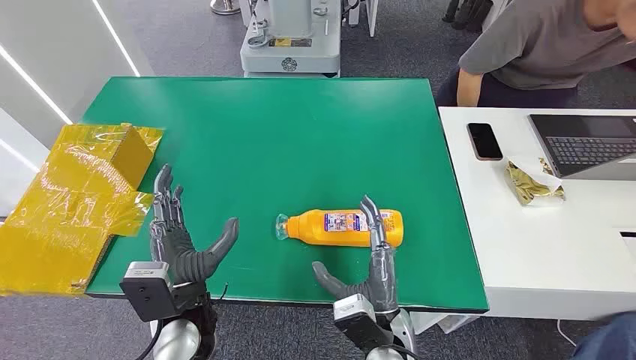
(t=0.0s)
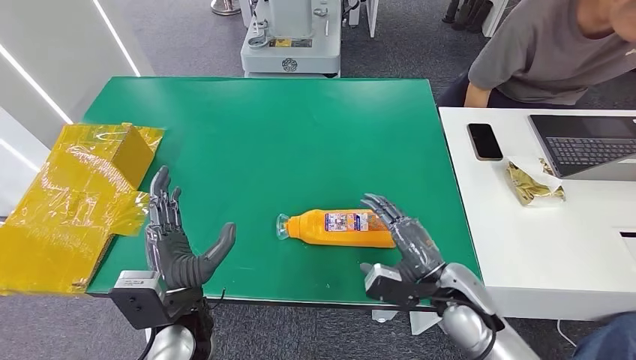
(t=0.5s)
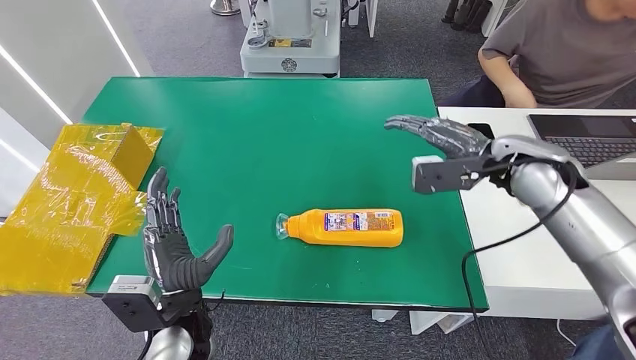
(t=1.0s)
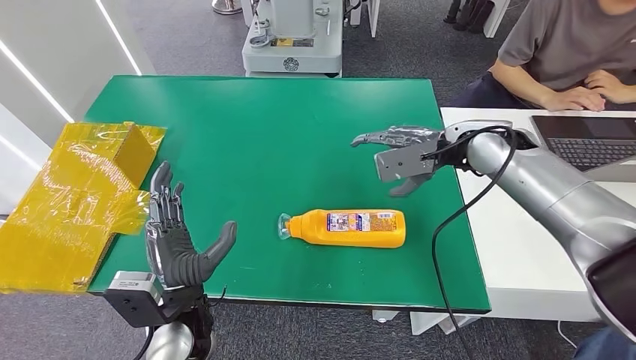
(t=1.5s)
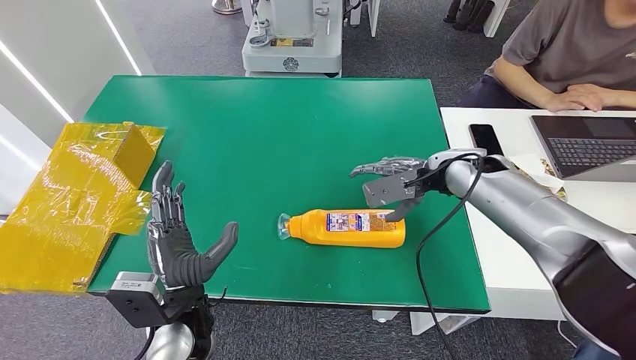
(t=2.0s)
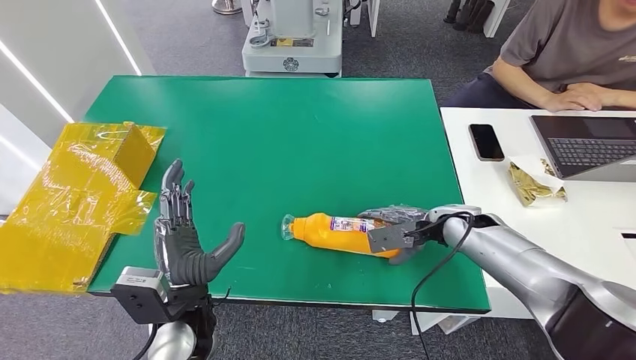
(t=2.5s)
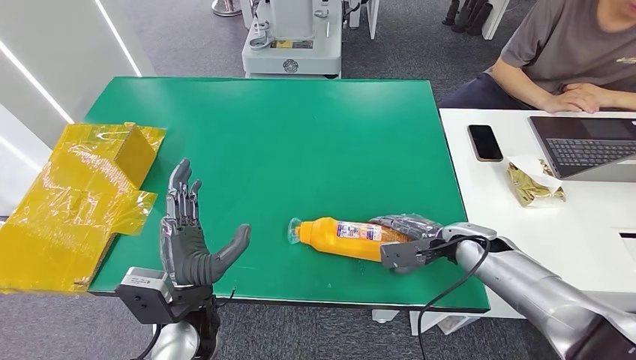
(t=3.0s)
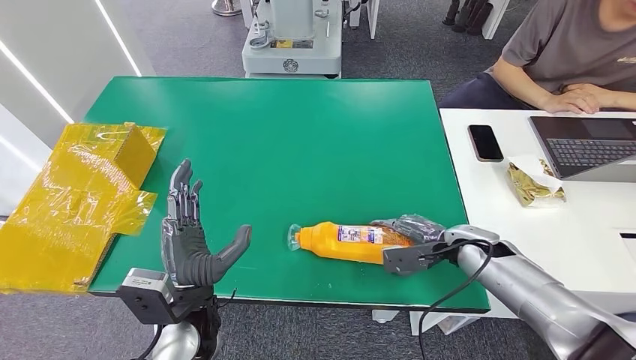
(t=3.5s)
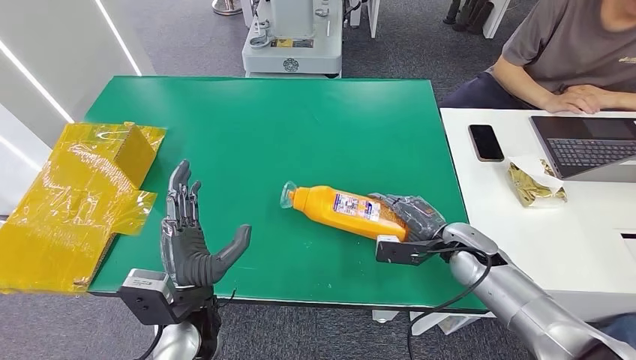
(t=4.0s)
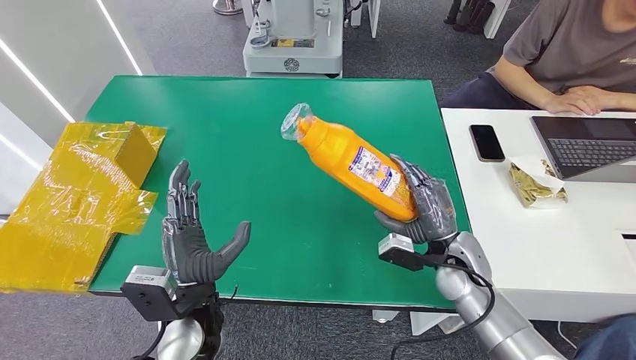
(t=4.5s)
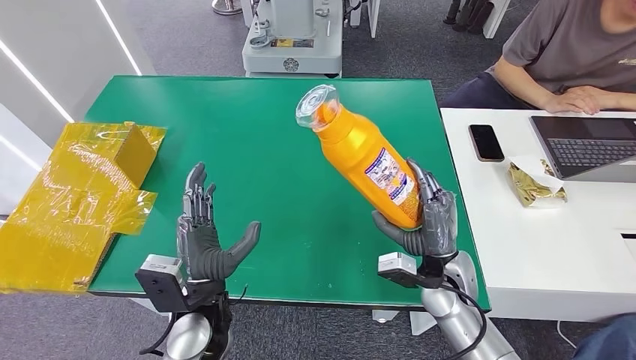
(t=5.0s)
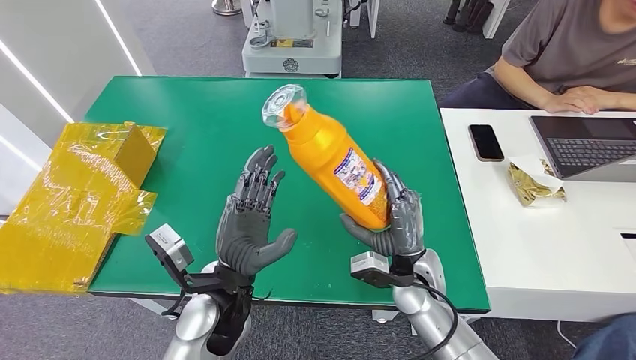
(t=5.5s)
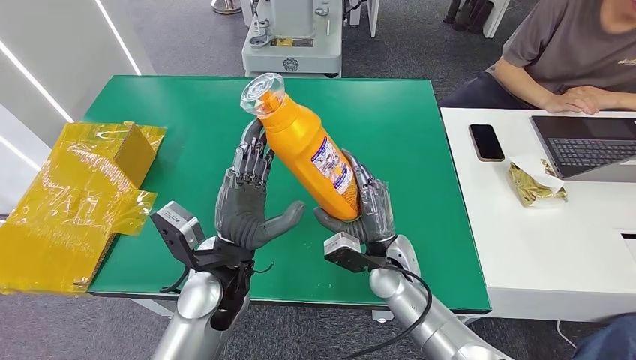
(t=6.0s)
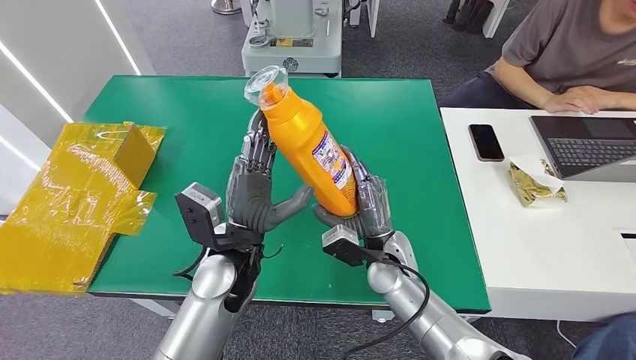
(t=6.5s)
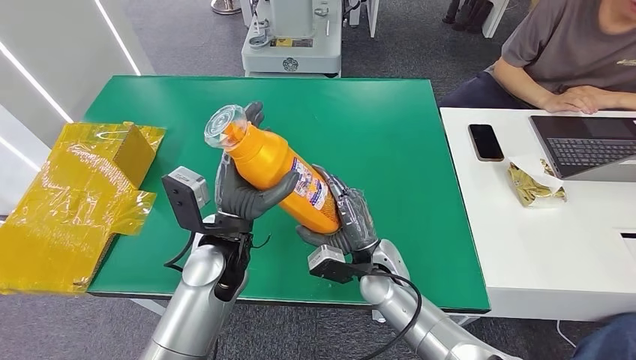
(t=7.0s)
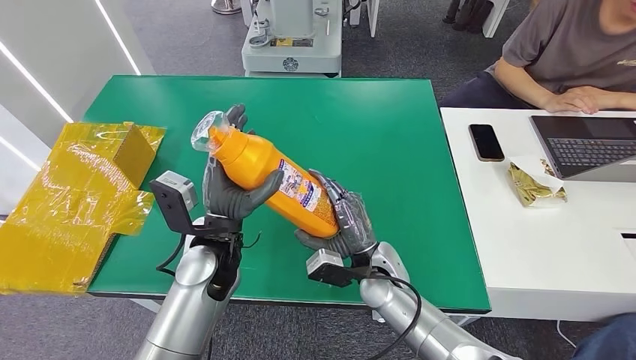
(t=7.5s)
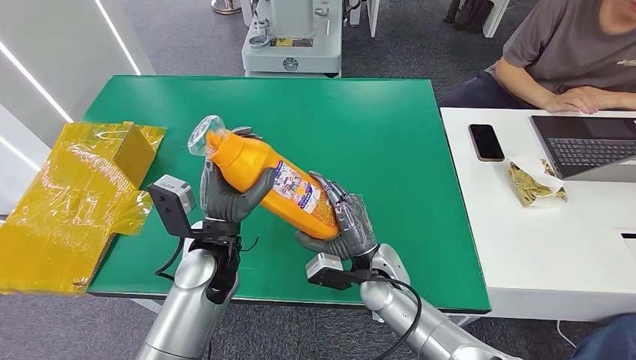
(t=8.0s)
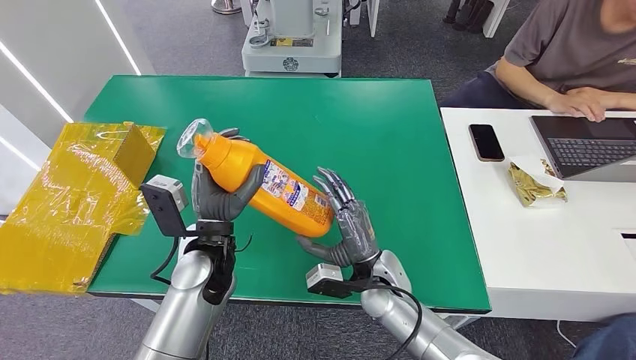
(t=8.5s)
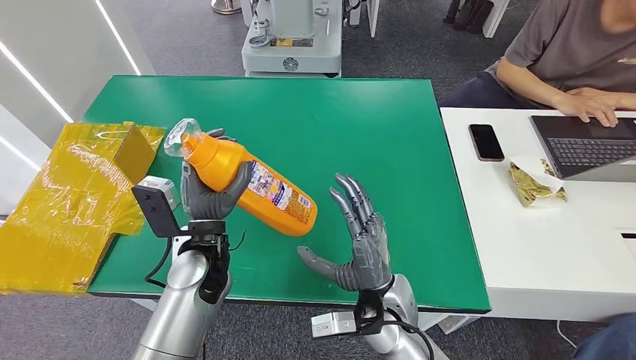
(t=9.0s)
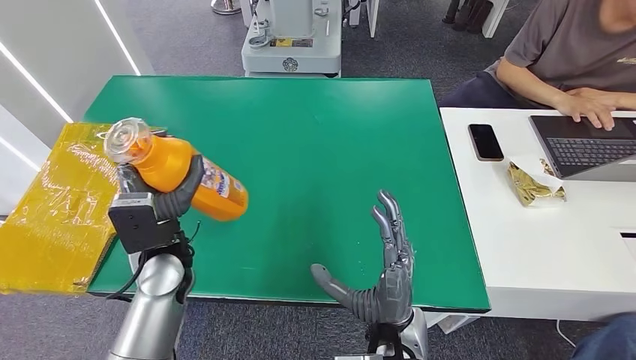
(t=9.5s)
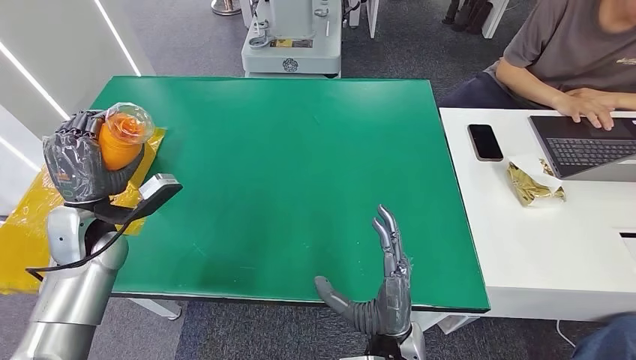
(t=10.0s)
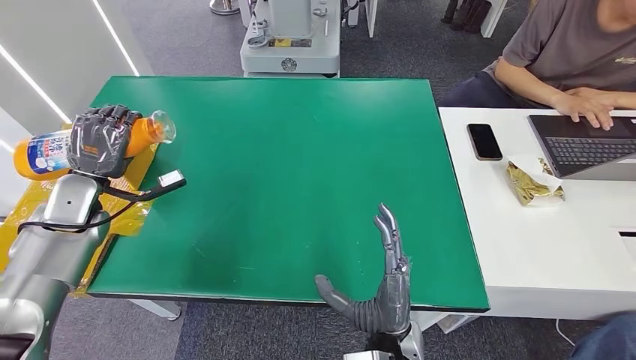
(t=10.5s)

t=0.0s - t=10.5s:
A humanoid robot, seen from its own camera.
Step, t=0.0s - t=5.0s: Pick up the bottle from the table.
t=2.0s - t=4.0s: The right hand heads downward and backward, covering approximately 15 cm.
t=6.5s - t=8.5s: The left hand ends up roughly 5 cm from where it was.

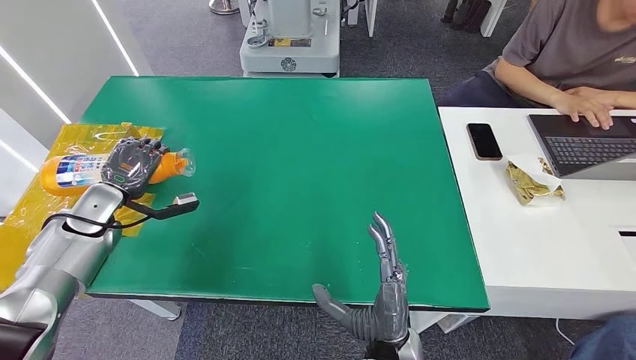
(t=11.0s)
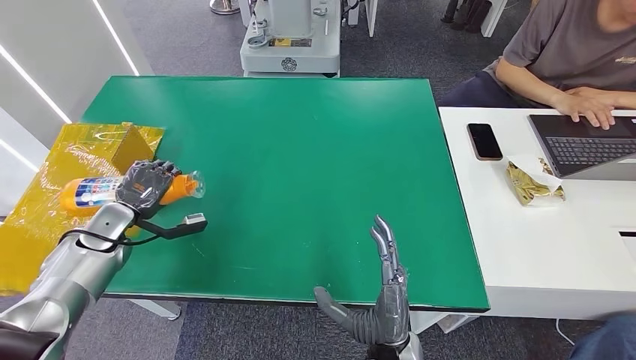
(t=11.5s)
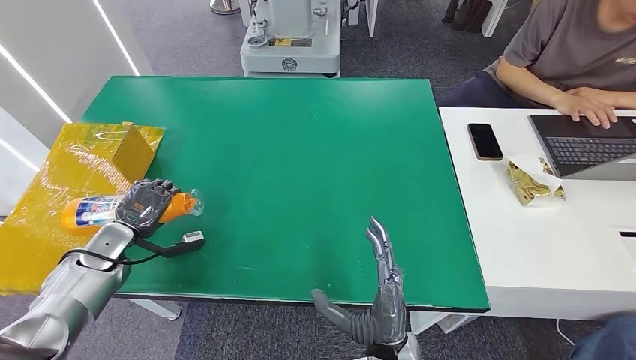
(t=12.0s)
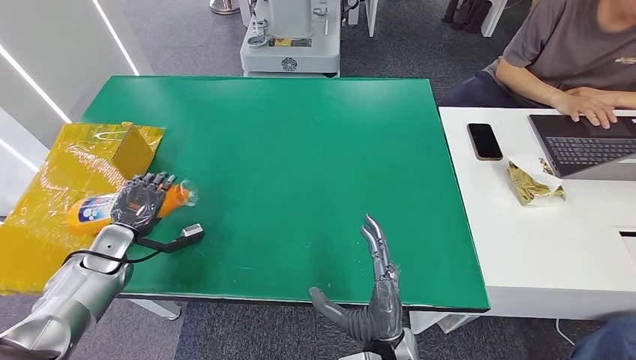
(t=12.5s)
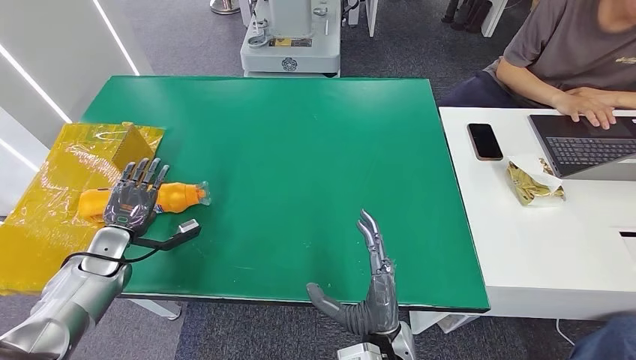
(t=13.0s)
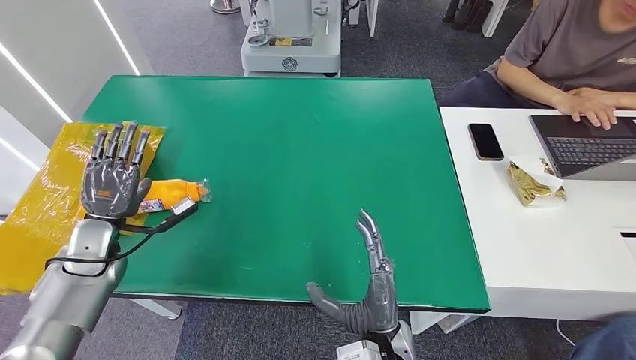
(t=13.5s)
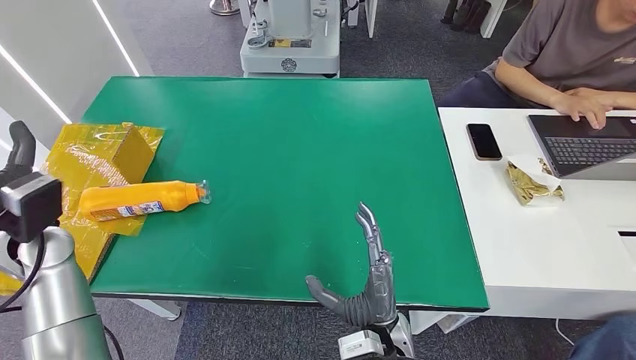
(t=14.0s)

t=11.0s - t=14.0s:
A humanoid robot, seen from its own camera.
Step, t=11.0s - t=14.0s: Turn the bottle to the front side.
t=11.0s - t=12.5s: The left hand is displaced downward and backward by roughly 10 cm.
t=12.5s - t=14.0s: The left hand is displaced upward by approximately 15 cm.
